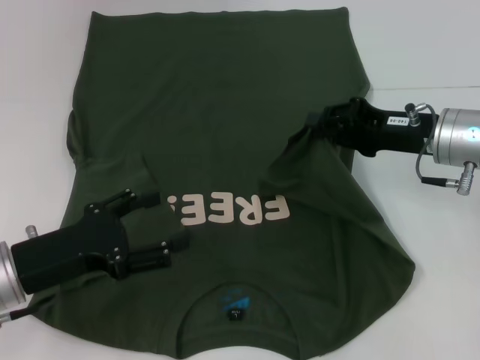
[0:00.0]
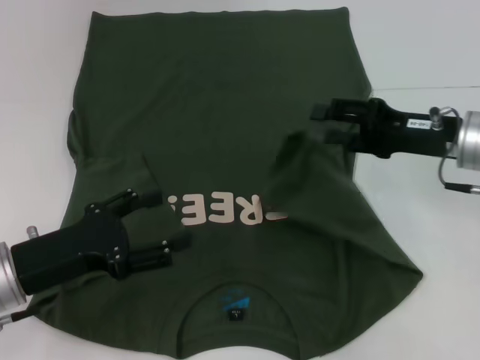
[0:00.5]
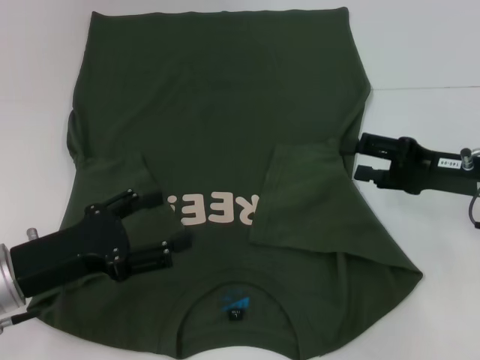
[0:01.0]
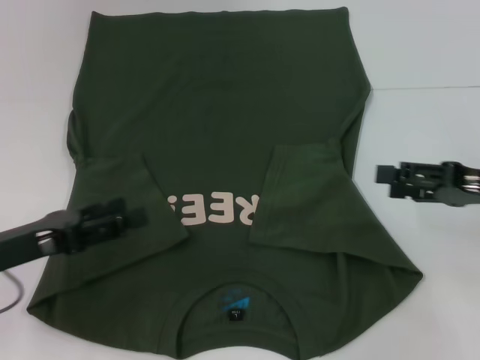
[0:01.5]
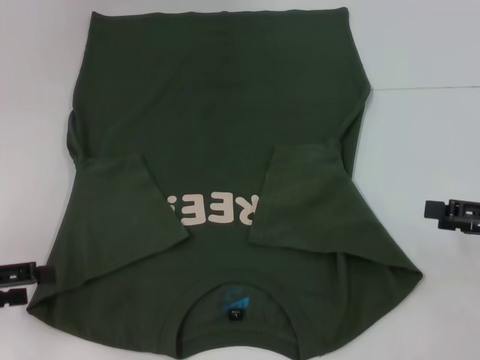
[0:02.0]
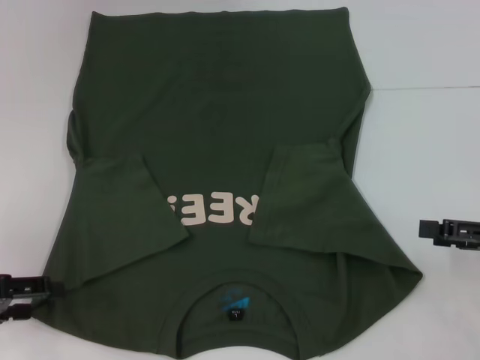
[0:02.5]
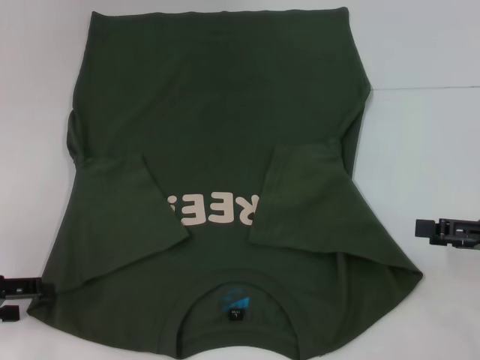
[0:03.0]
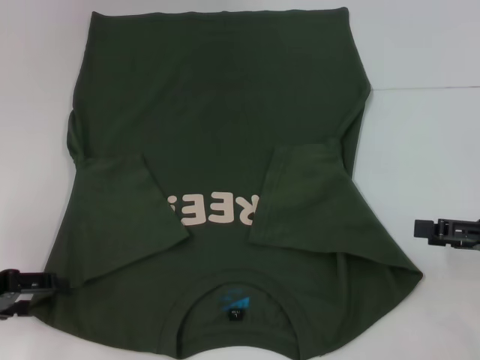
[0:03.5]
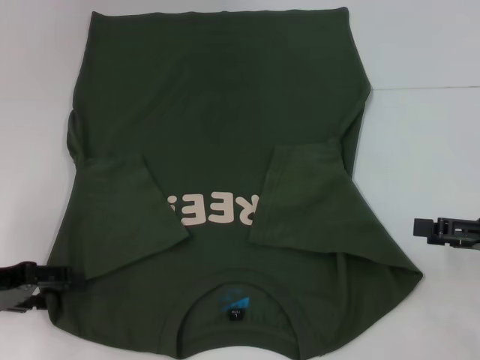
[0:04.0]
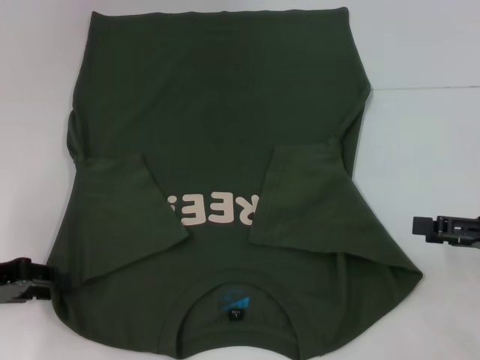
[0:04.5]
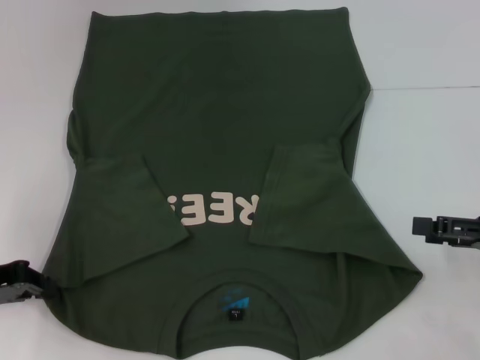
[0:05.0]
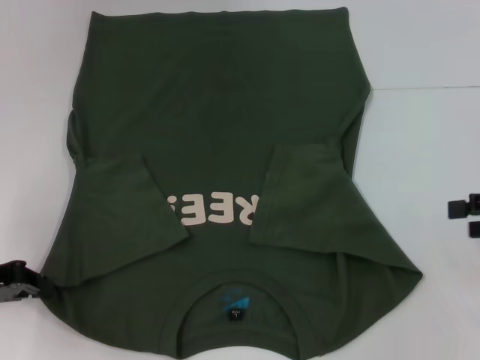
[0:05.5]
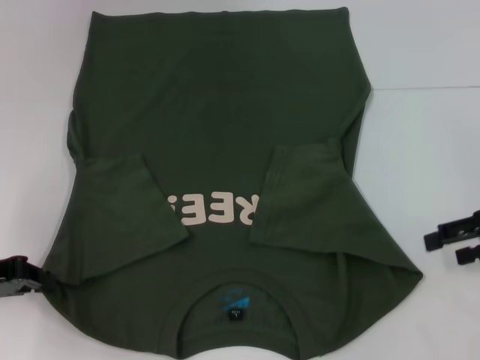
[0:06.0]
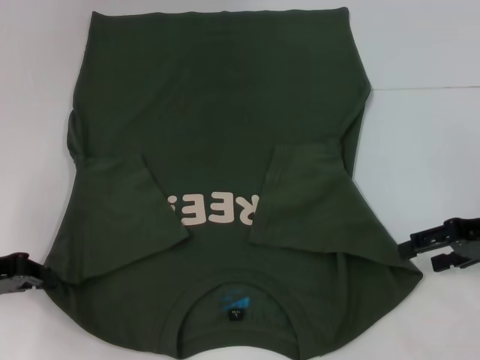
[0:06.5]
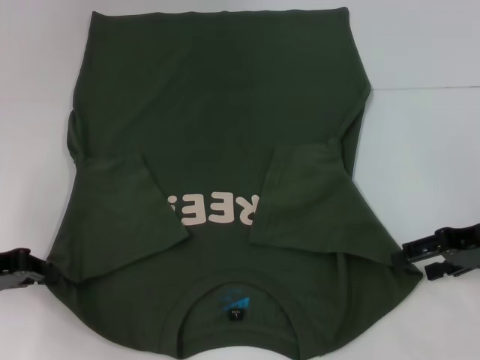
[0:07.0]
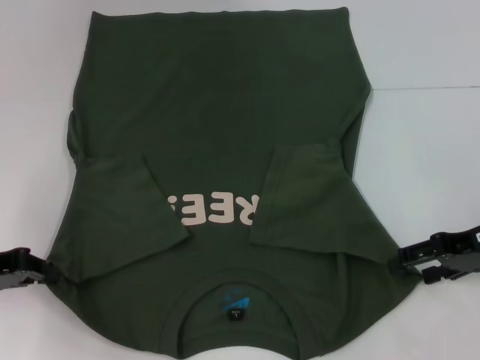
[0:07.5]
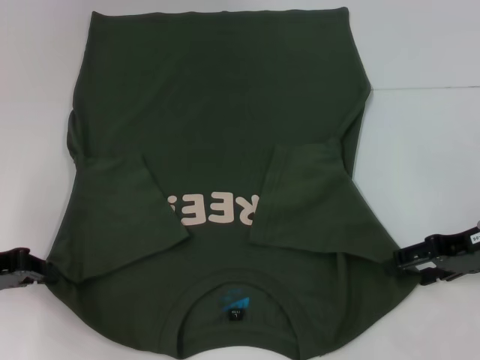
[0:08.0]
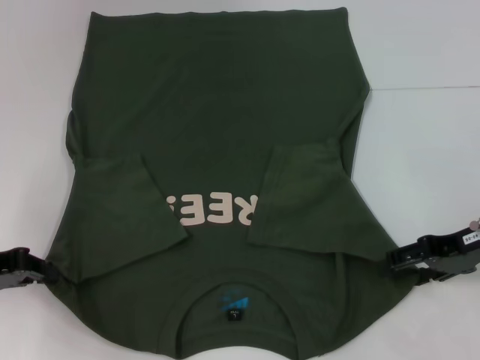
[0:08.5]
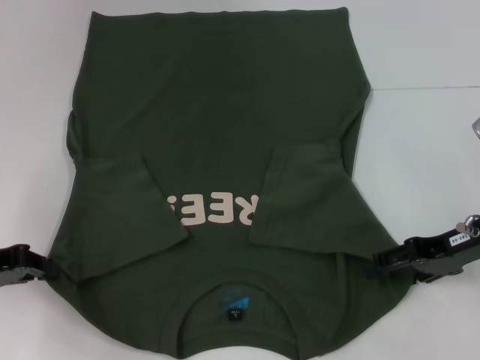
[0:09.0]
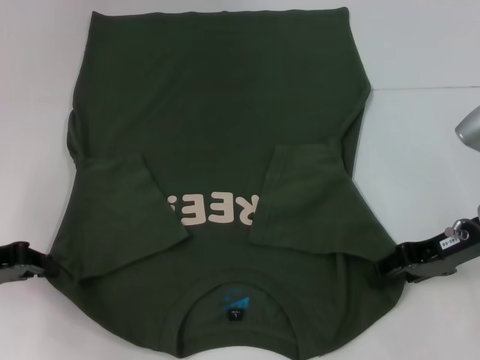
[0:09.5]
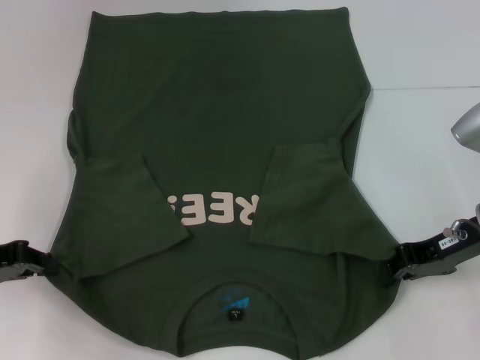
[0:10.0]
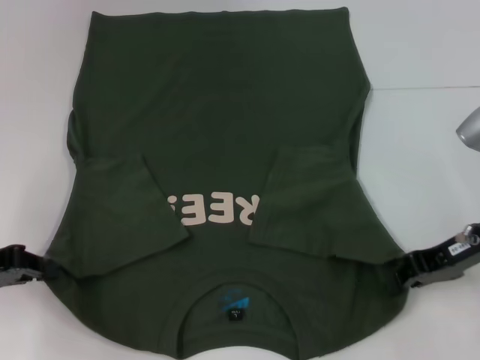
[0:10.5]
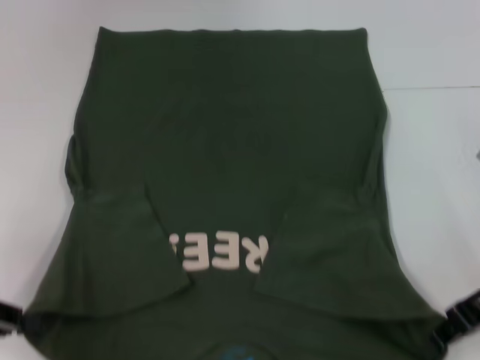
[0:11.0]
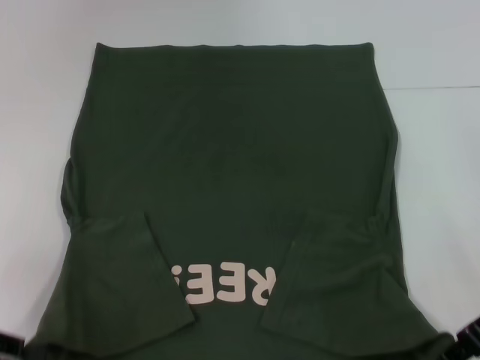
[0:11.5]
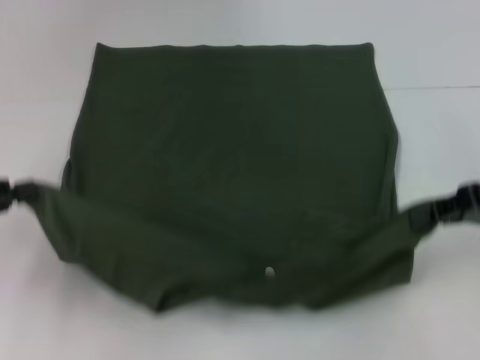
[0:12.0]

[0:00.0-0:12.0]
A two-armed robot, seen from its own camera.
Step, 1.0 to 5.0 s: Grab the bottom left corner with your left hand.
Step, 5.5 to 10.5 s: Grab the bottom right corner with your right hand.
0.0 to 2.0 s: The left gripper moves to the left, roughly 10 cm. The right gripper shifts about 15 cm to the right and backward, and opens.
2.0 to 4.0 s: The left gripper moves about 5 cm.
4.0 to 6.0 s: The right gripper moves forward, about 5 cm. Meanwhile the left gripper closes up.
6.0 to 8.0 s: The right gripper shifts by about 5 cm.
8.0 to 10.0 s: The right gripper closes.
10.0 to 12.0 s: The right gripper heads upward and to the right, covering about 10 cm. Meanwhile the left gripper ends up about 5 cm from where it was.

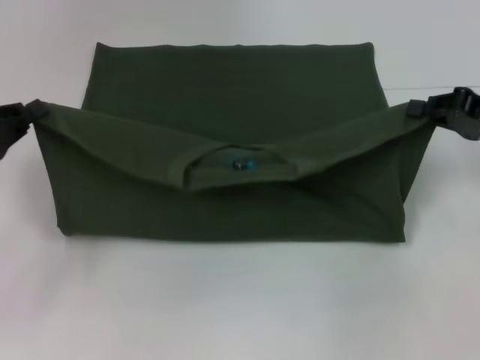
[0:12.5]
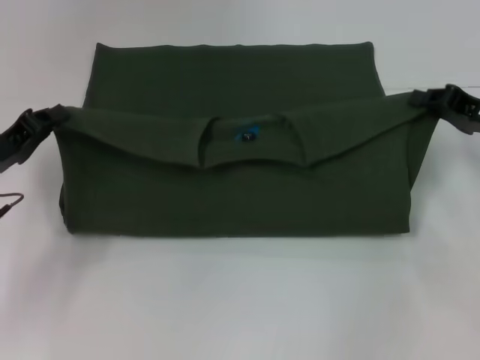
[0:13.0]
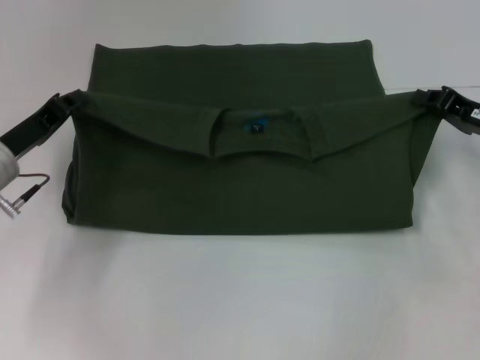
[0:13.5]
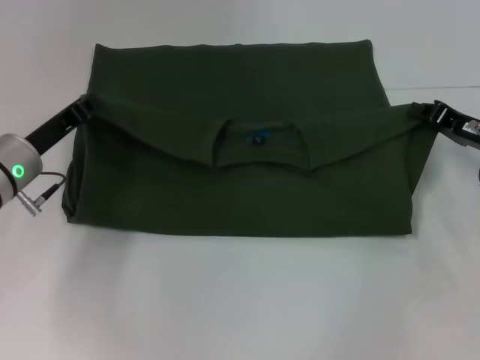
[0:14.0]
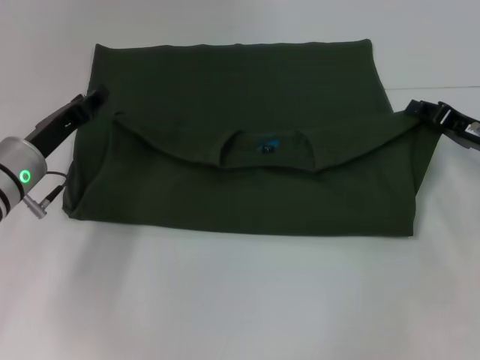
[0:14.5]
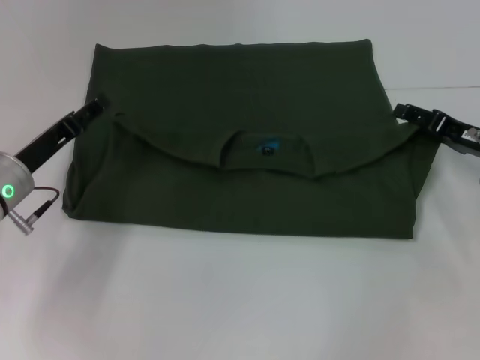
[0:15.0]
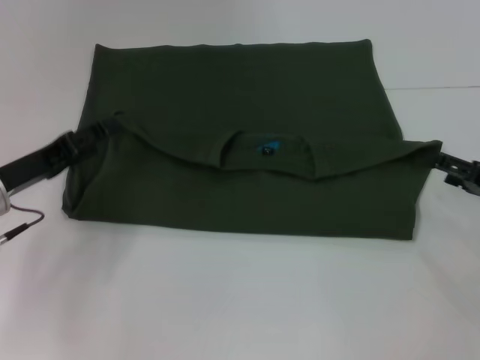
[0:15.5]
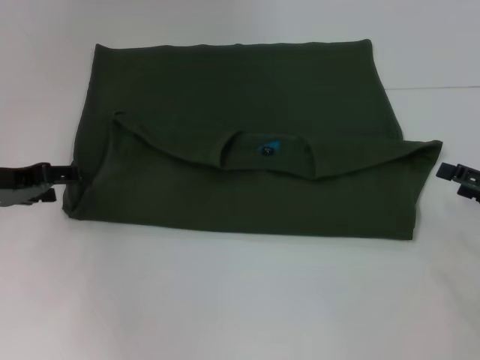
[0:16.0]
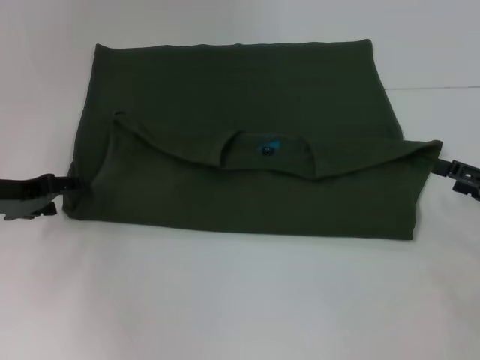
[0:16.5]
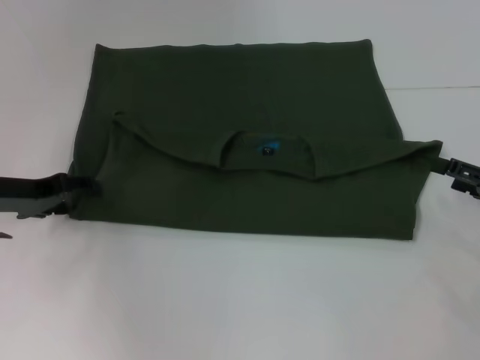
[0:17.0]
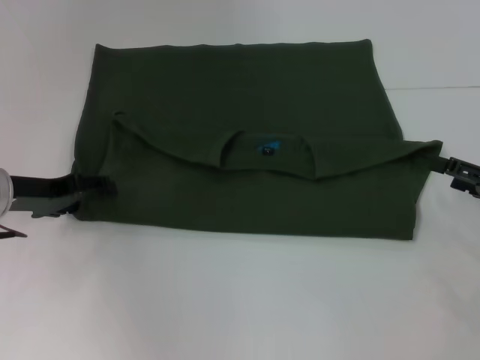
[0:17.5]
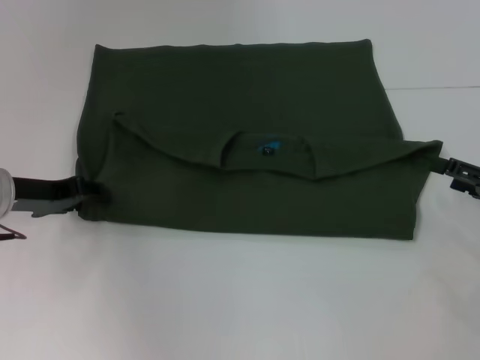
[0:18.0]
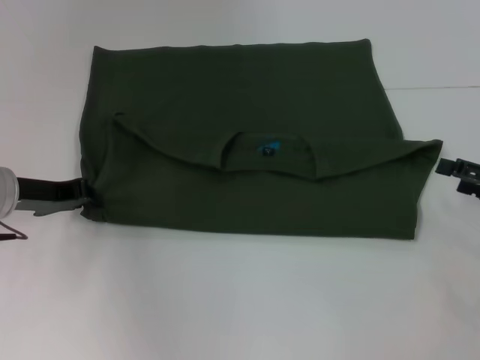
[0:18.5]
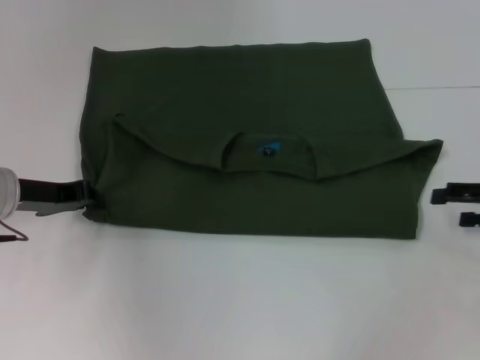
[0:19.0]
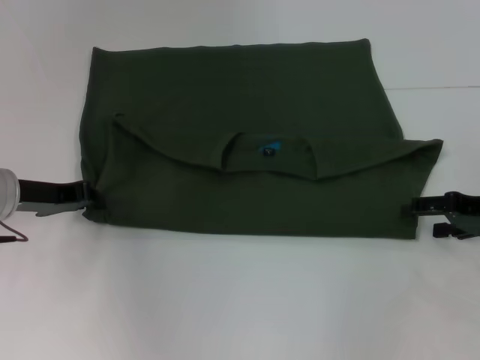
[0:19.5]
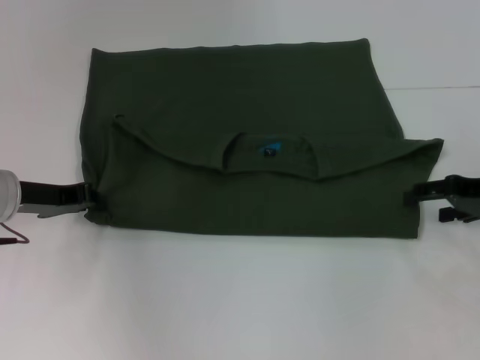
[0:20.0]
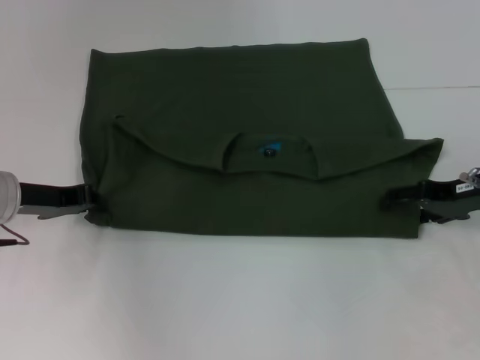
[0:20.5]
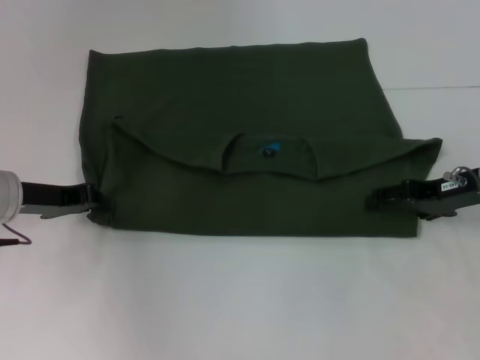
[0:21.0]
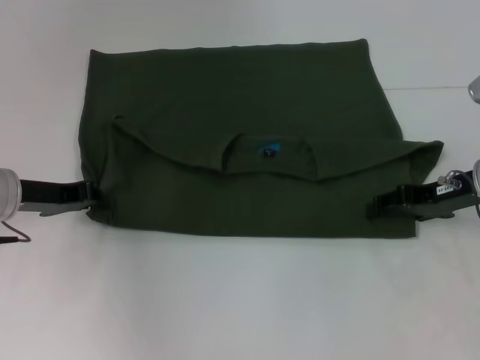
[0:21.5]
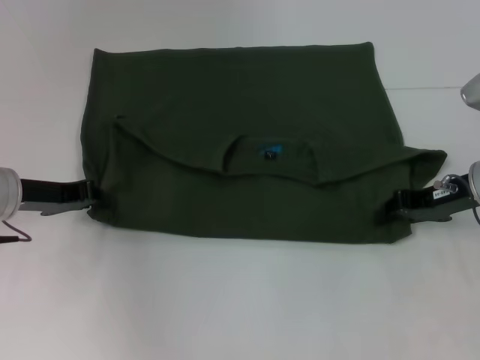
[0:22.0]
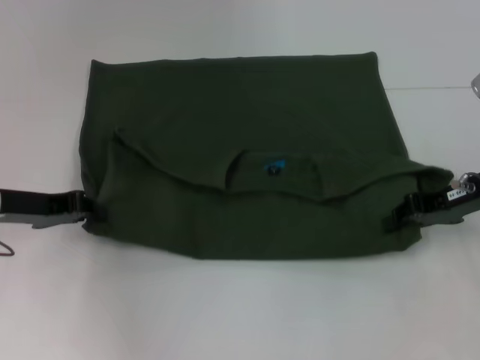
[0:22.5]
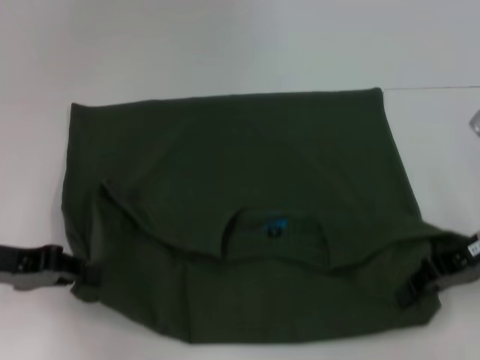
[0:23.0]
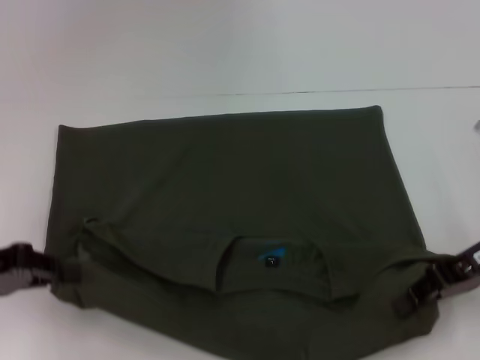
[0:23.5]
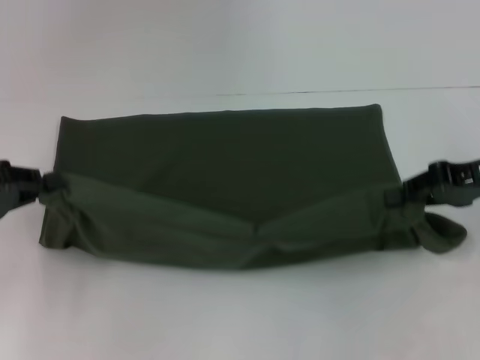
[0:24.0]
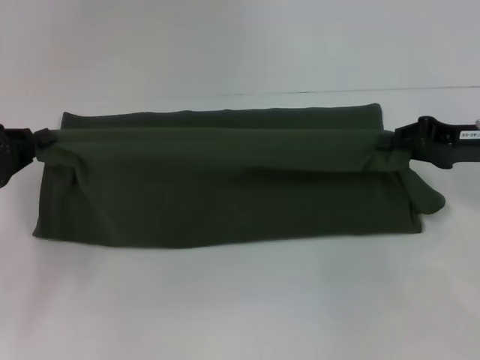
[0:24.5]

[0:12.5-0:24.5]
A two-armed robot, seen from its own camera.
Step, 12.5 to 15.0 s: Fold the clothes with your left hand.
Step, 12.5 to 15.0 s: Fold the clothes with your right hand.
Step, 15.5 to 23.0 s: Pull the clothes with your left hand.
Step, 15.5 to 23.0 s: Pull the clothes with your right hand.
12.5 to 14.5 s: The right gripper shifts roughly 5 cm downward. The left gripper heads to the right and forward, covering some 10 cm, and opens.
14.5 to 16.5 s: The left gripper travels to the left by some 5 cm, and opens up, while the right gripper shifts roughly 10 cm backward and to the right, and opens its fingers.
16.5 to 18.5 s: The left gripper closes.
18.5 to 20.5 s: The right gripper shifts some 10 cm to the left and forward.
20.5 to 22.5 s: The right gripper closes.
22.5 to 24.5 s: The left gripper moves to the left, approximately 5 cm.

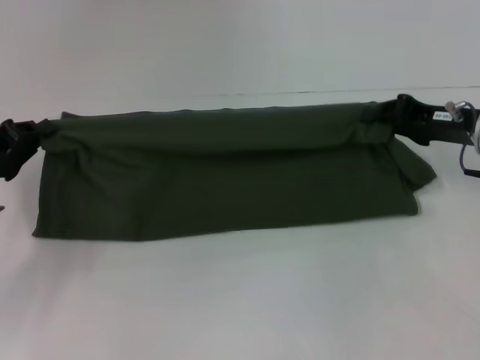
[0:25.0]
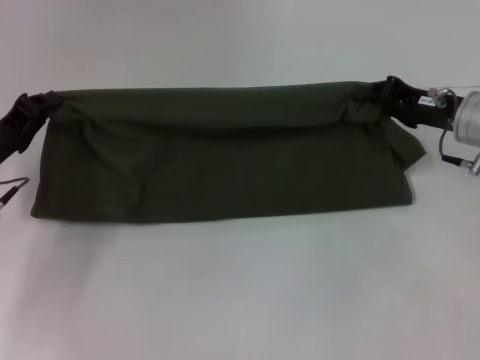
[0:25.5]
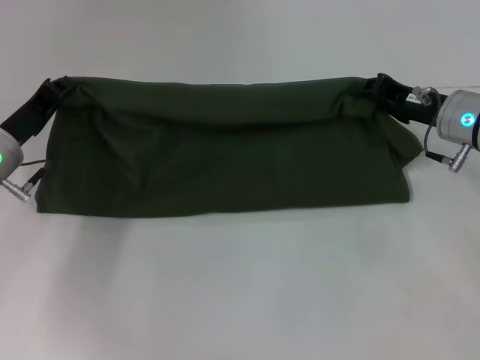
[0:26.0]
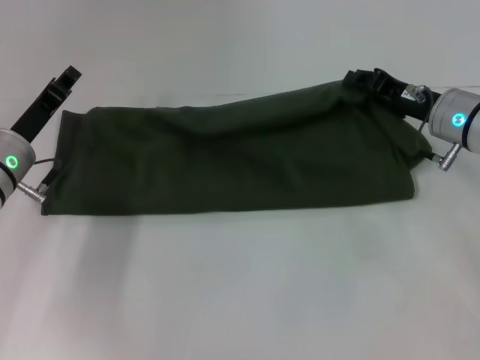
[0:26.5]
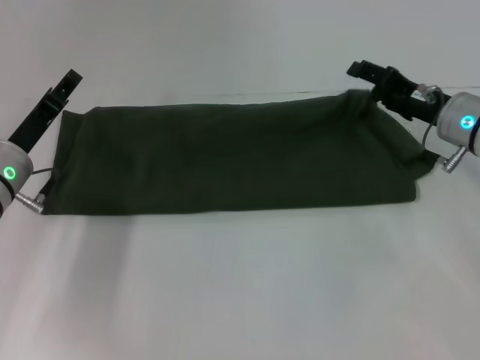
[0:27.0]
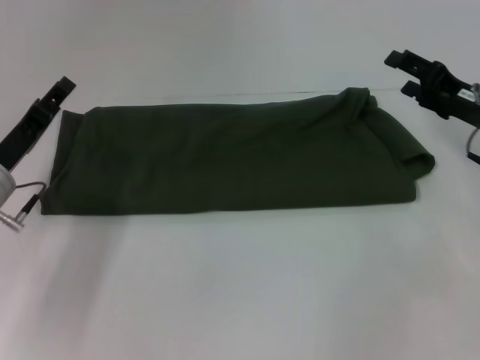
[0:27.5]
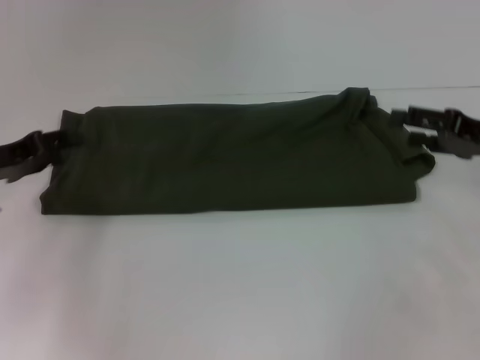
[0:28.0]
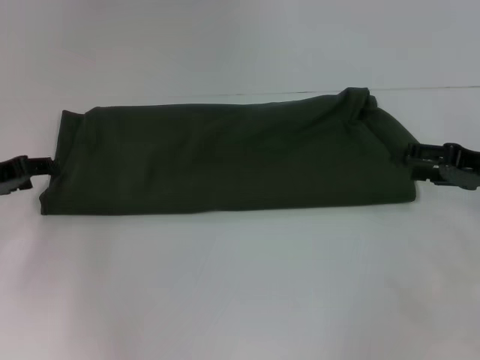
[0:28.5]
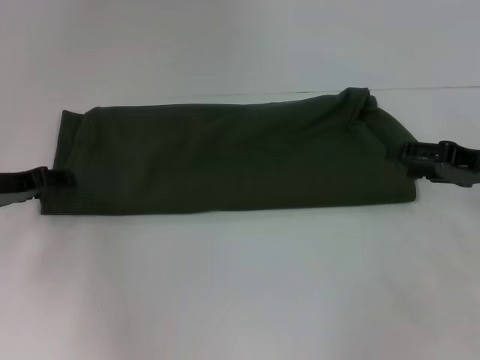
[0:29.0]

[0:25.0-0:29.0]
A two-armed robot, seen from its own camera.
Step, 25.0 to 27.0 s: Fold the clothes with your right hand.
25.0 to 27.0 s: The right gripper opens; the left gripper moves to the right, about 5 cm, and opens its fingers.
27.0 to 29.0 s: The right gripper heads to the right and backward, covering about 10 cm. The left gripper moves to the left, about 5 cm.
